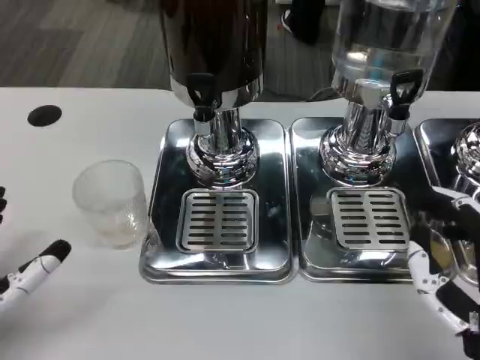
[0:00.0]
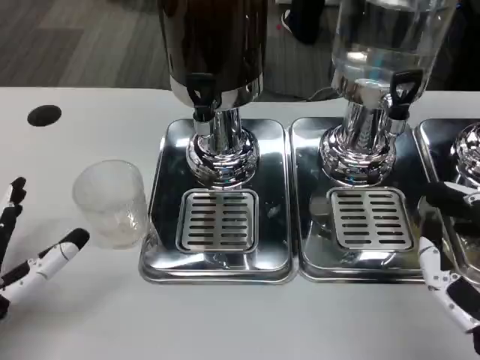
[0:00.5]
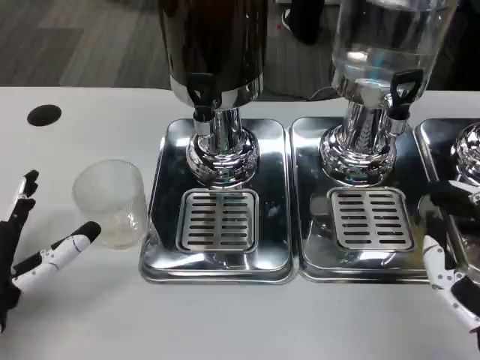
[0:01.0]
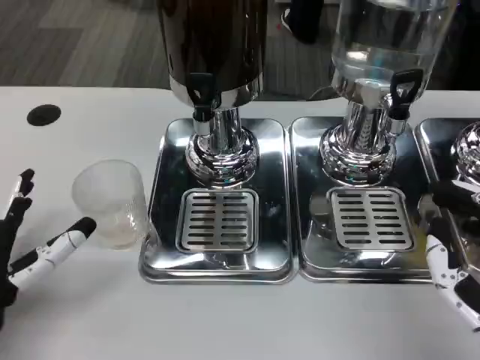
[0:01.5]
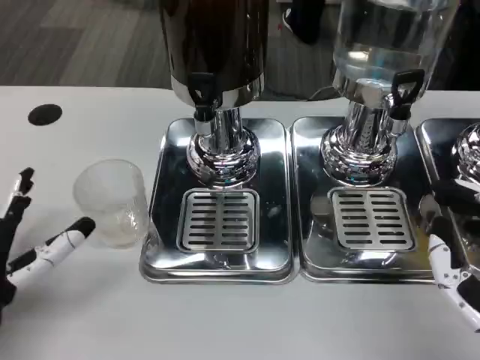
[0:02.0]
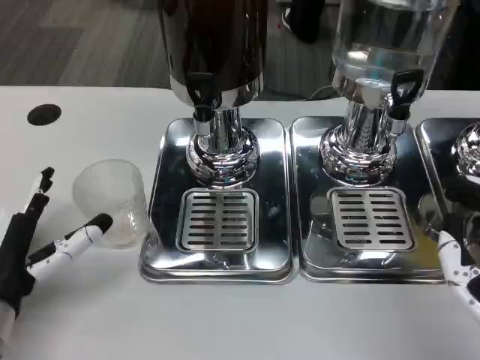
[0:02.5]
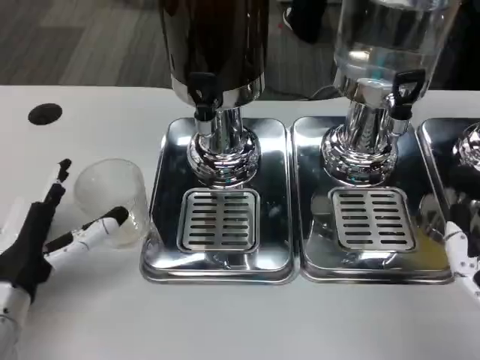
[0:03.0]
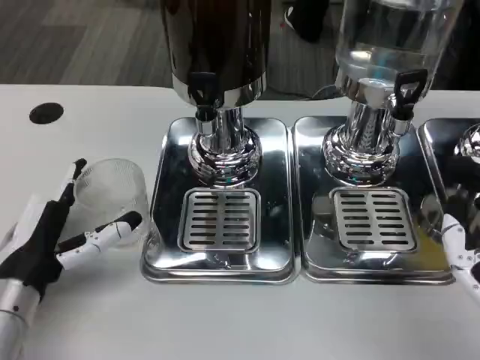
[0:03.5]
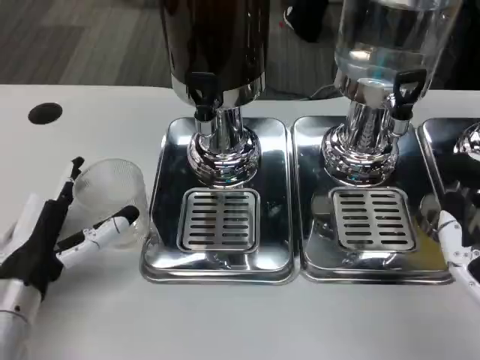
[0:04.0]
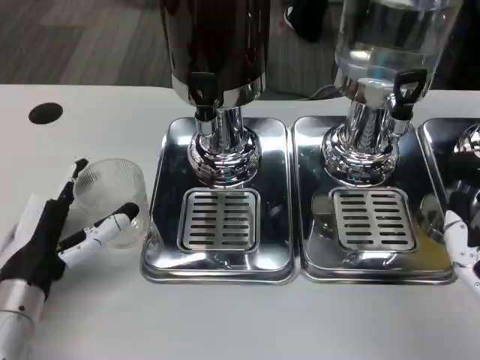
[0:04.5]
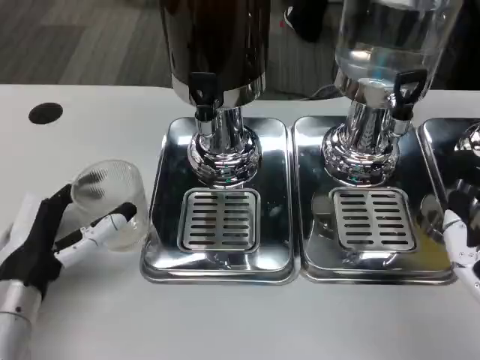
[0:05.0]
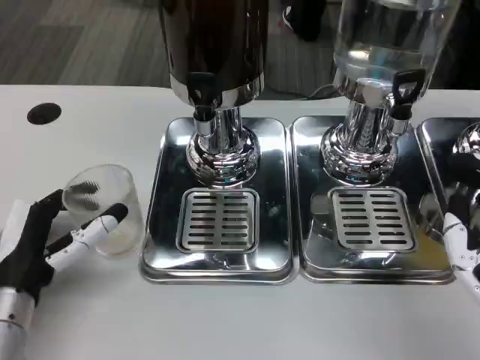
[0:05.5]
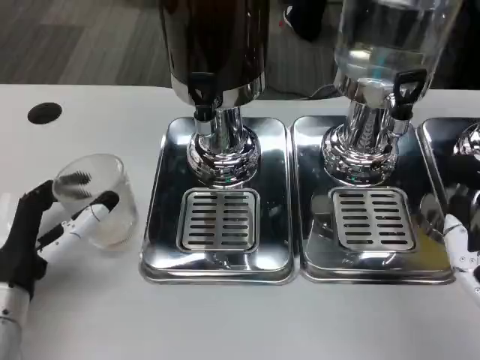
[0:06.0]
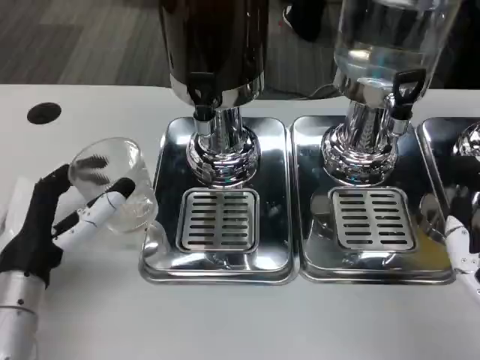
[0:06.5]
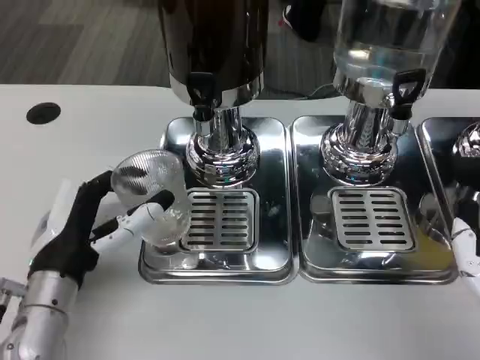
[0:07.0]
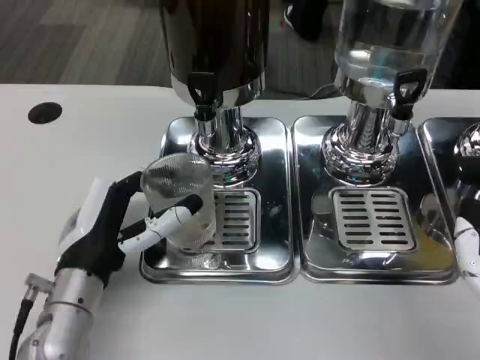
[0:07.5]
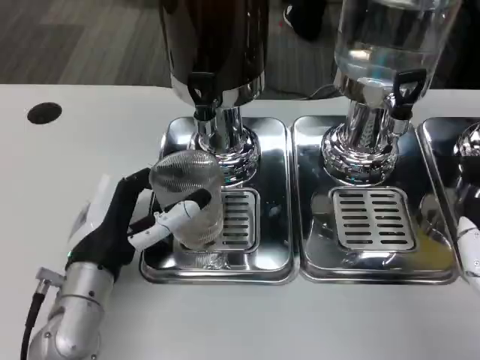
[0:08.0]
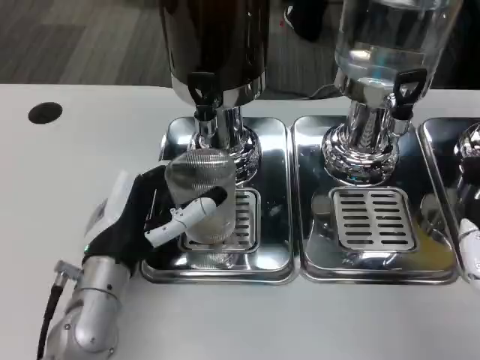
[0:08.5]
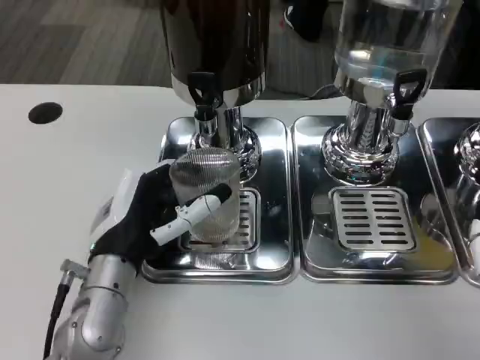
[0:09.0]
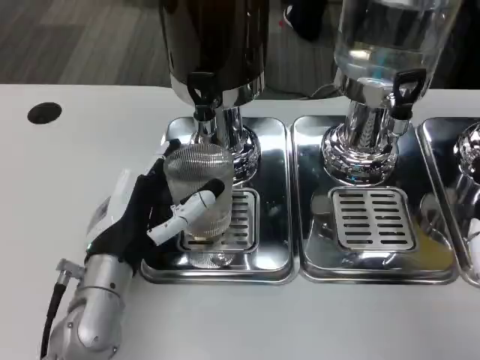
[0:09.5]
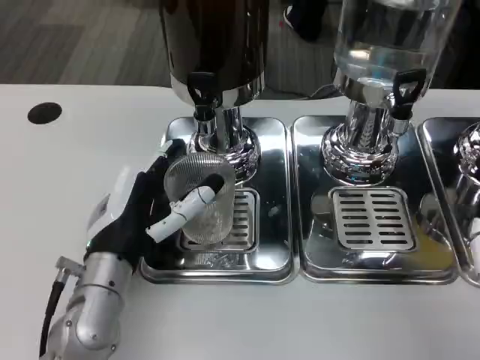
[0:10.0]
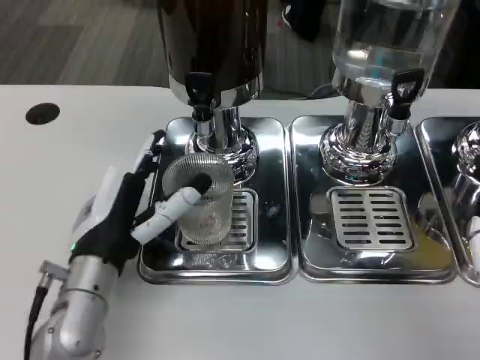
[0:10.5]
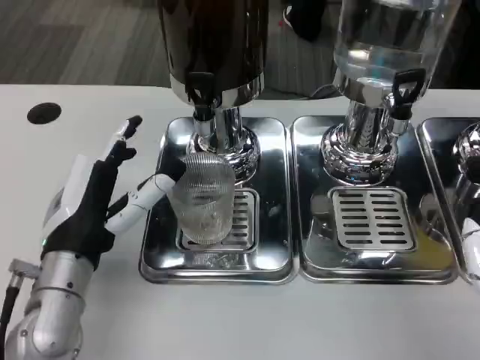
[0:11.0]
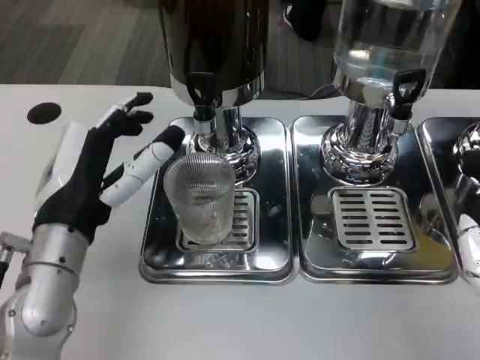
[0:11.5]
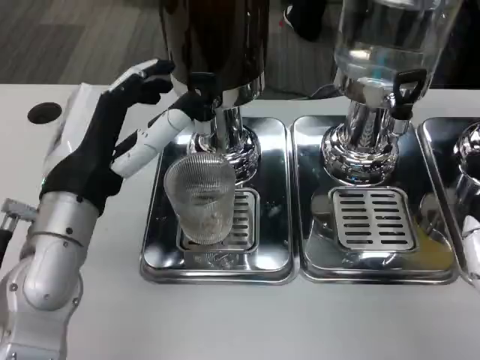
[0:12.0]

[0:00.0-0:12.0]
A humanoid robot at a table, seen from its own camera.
Task of the whole recording: Grasp the cup under the faucet to collect the drink, then remove the cup.
0:00.0 to 0:02.0: The hands make only small movements.
0:02.0 to 0:06.0: The hands make only small movements.
0:06.0 to 0:08.0: The left hand shifts some 5 cm to the right.
0:08.0 to 0:10.0: The hands make only small movements.
0:10.0 to 0:12.0: The left hand goes some 10 cm upward.

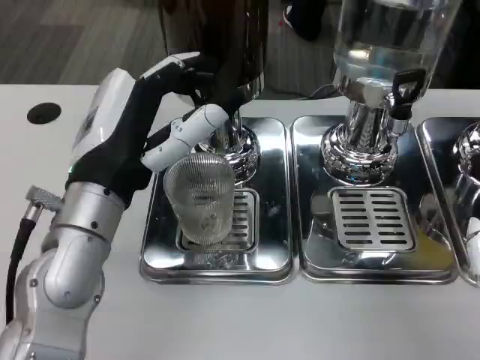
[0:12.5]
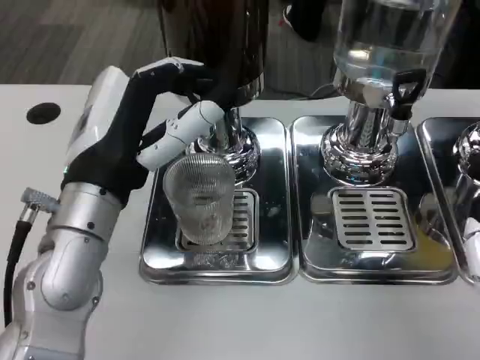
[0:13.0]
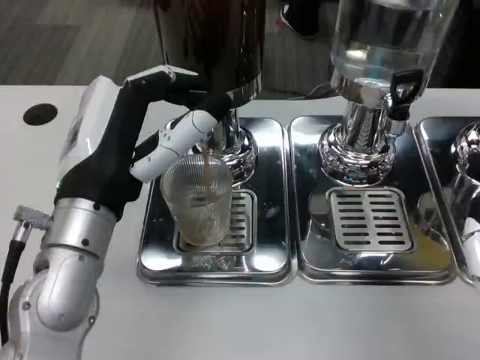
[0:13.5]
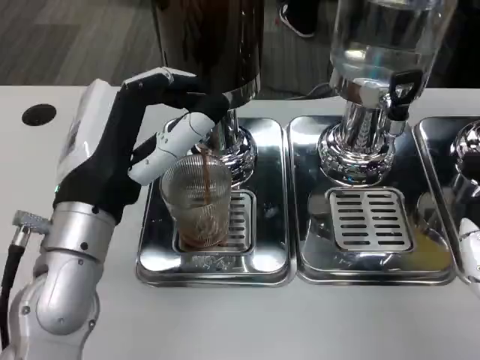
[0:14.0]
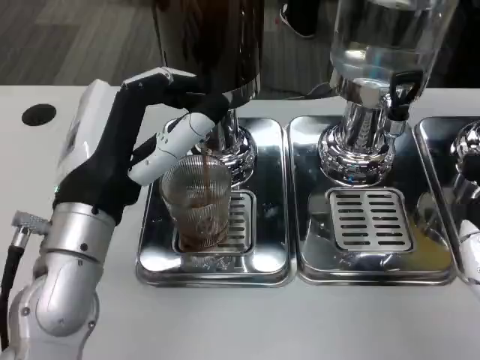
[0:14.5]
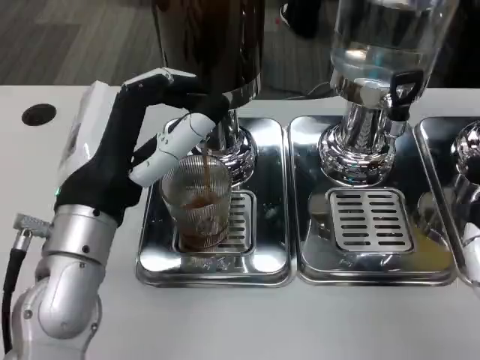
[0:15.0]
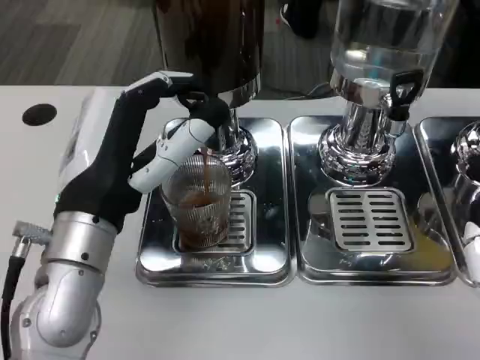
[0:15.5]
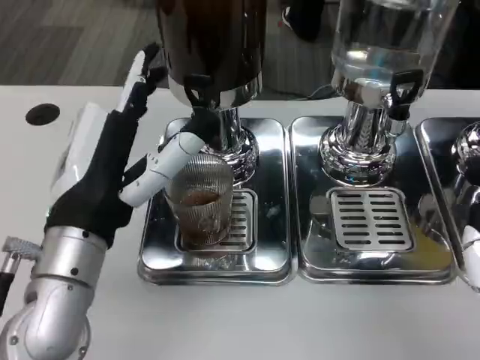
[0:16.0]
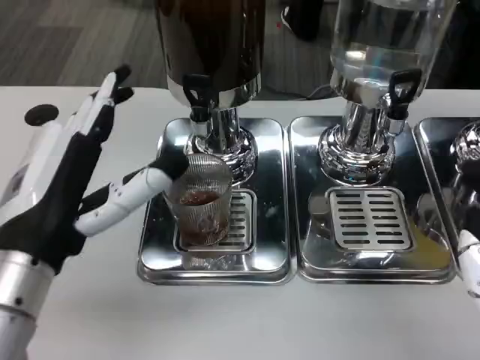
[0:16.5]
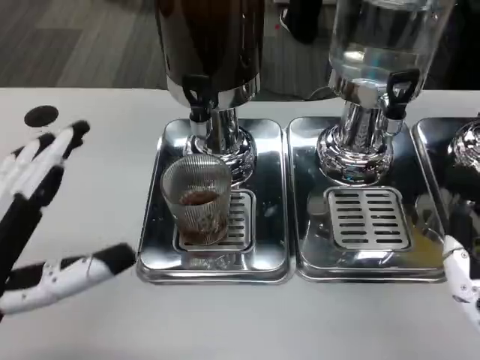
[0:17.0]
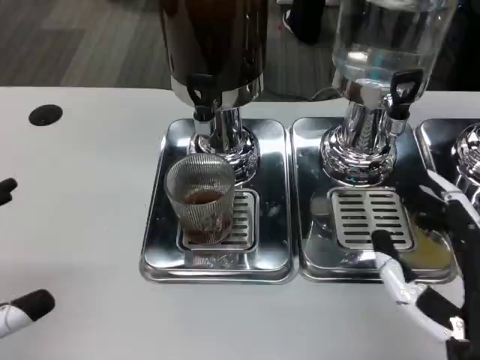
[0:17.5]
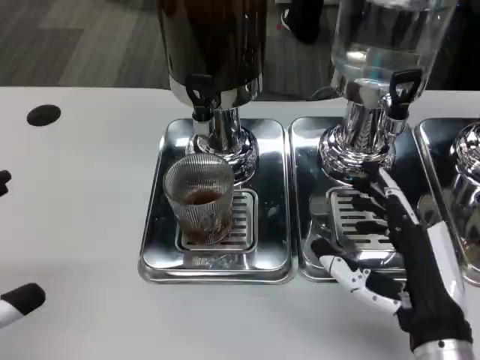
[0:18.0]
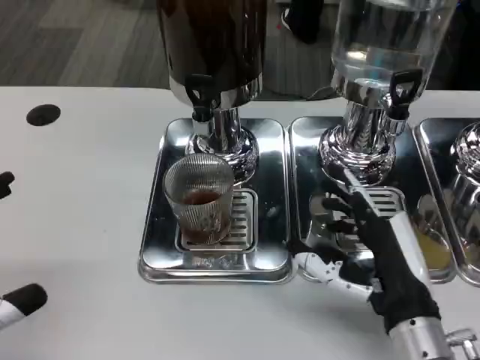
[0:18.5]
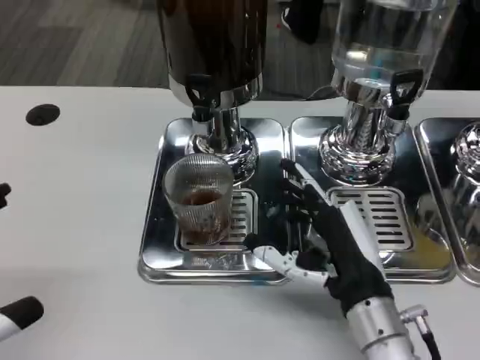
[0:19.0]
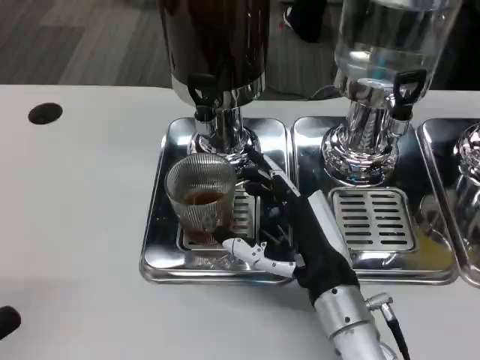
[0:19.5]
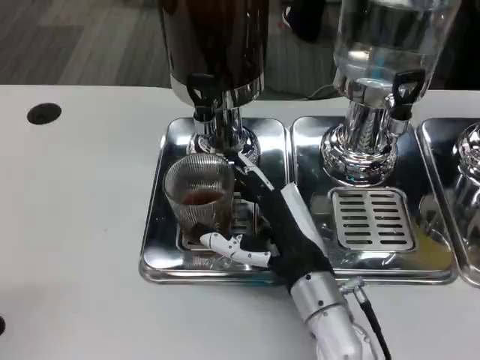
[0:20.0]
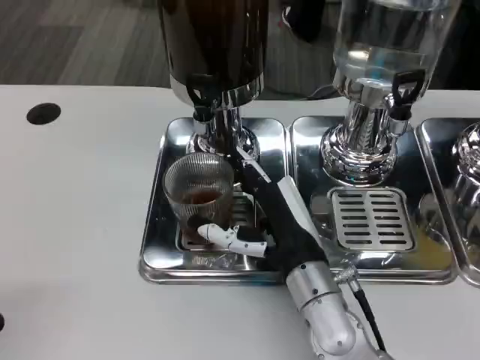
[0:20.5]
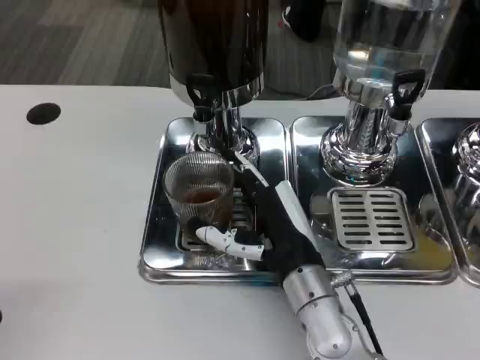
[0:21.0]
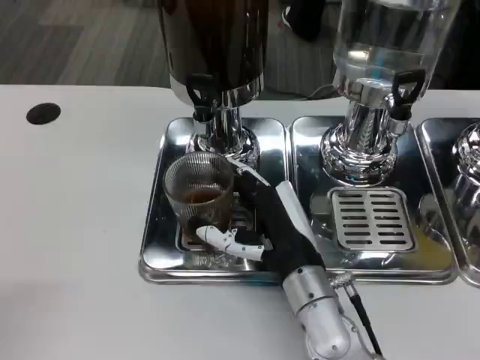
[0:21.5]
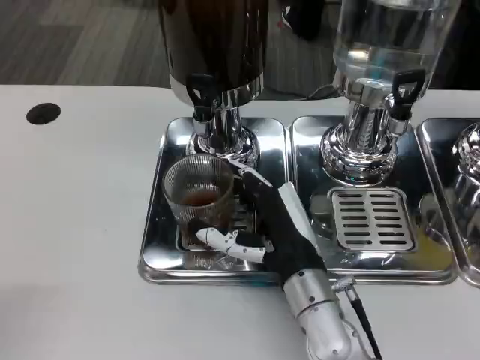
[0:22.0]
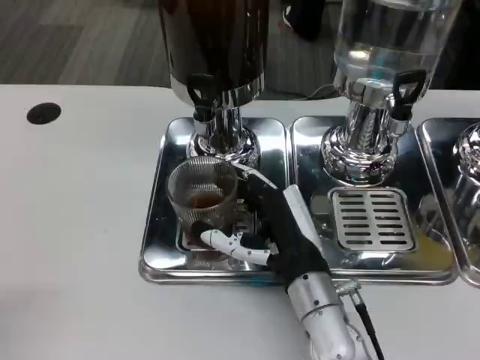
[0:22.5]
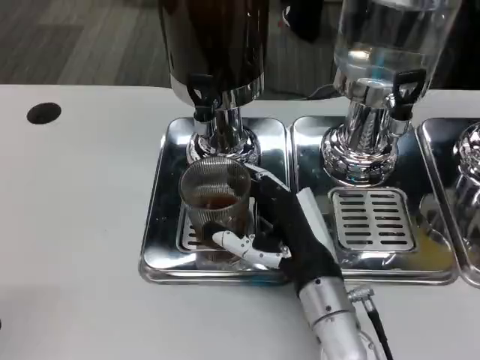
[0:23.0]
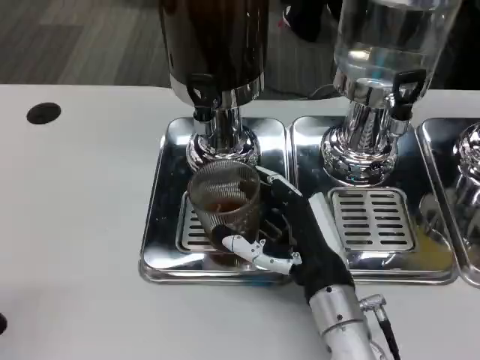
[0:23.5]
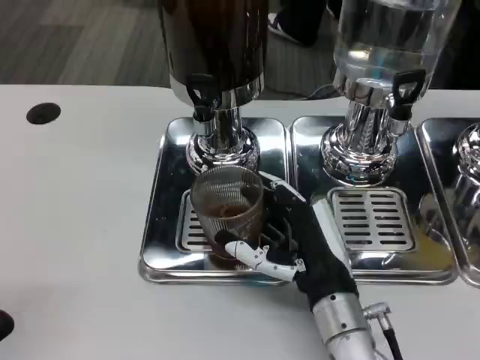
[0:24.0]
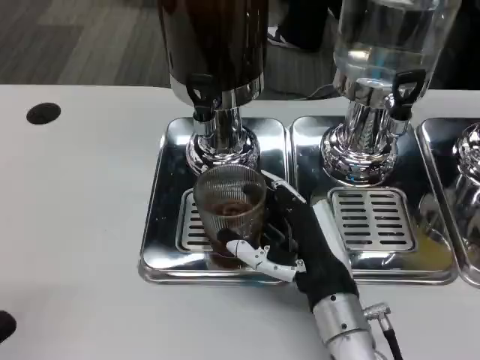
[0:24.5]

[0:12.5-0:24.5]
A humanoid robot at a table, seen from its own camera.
Task of the whole recording: Grasp the cup under the faucet to collect the drink, then remove the cup.
0:14.5 to 0:16.5: The left hand changes place by roughly 5 cm.
0:16.5 to 0:18.5: The left hand moves to the left and backward, approximately 15 cm. Meanwhile the right hand moves forward and downward, some 10 cm.
0:18.5 to 0:20.5: The right hand shifts some 10 cm to the left and forward.
0:20.5 to 0:22.5: Both hands stay put.
0:22.5 to 0:24.5: There are only small adjustments of the hands.

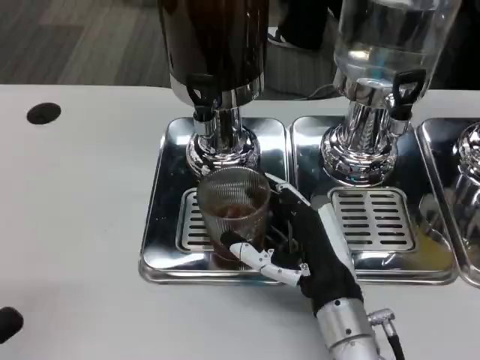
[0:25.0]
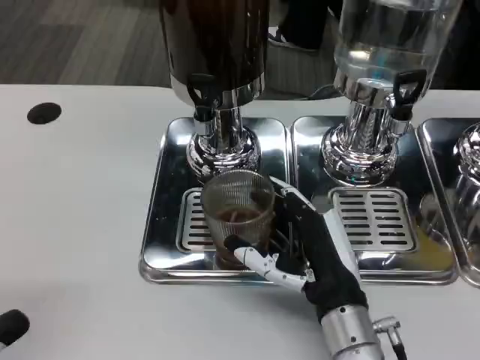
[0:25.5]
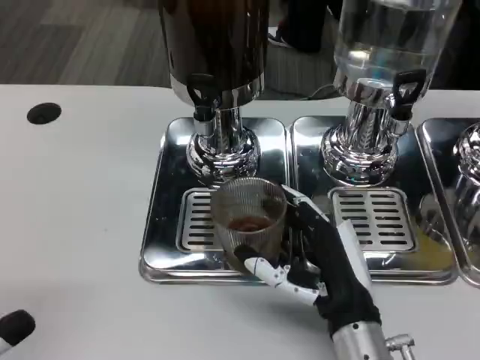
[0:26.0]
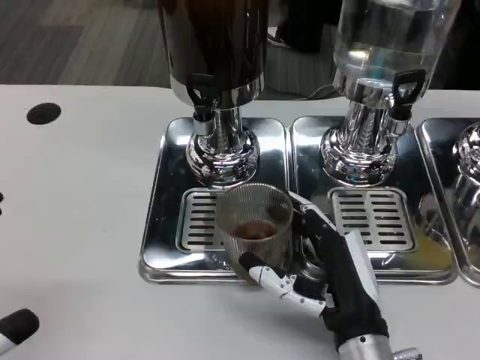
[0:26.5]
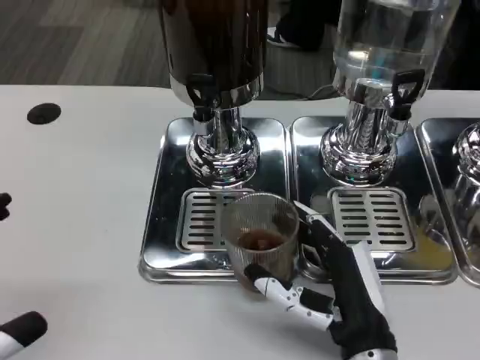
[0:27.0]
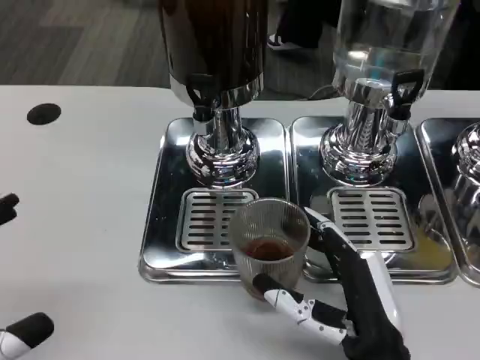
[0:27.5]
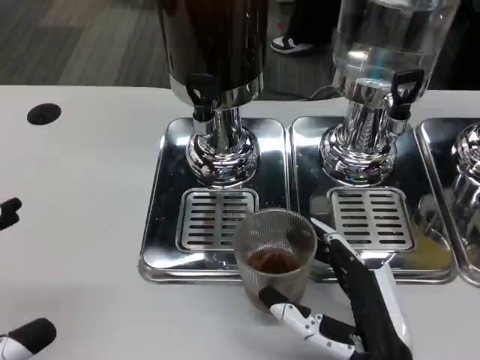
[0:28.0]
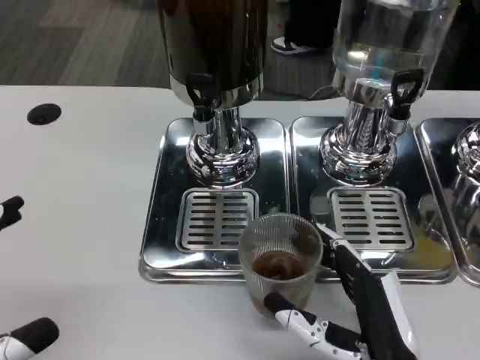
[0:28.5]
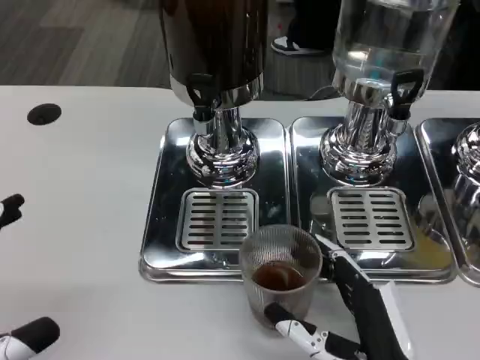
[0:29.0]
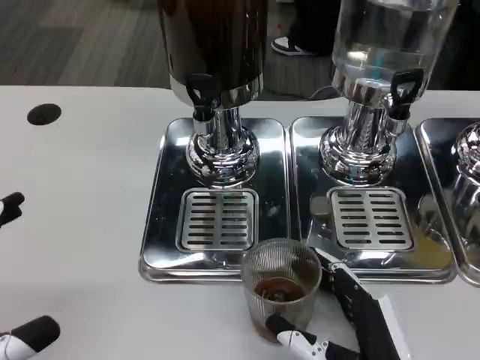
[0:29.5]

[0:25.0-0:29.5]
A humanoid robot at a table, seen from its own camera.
Task of the whole recording: Grasp the cup under the faucet to collect the drink, then remove the cup.
0:25.0 to 0:27.0: The right hand travels backward by roughly 5 cm.
0:27.0 to 0:29.5: The right hand moves roughly 5 cm.
